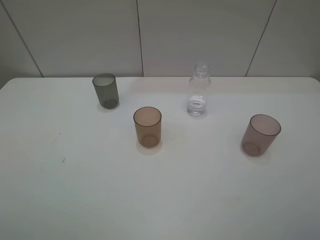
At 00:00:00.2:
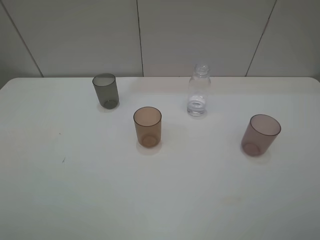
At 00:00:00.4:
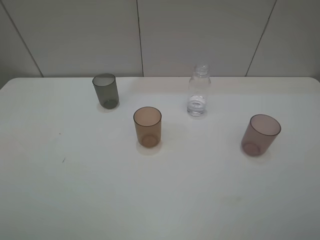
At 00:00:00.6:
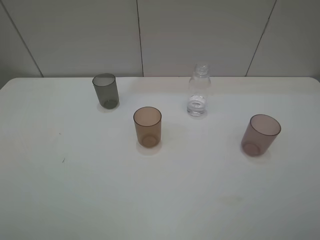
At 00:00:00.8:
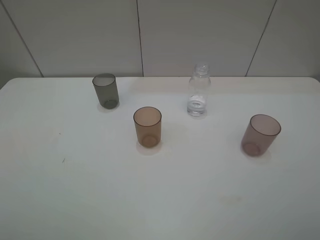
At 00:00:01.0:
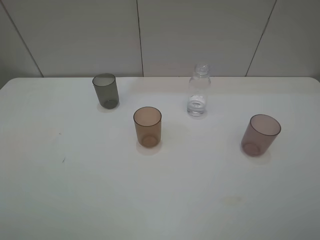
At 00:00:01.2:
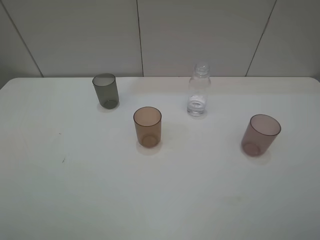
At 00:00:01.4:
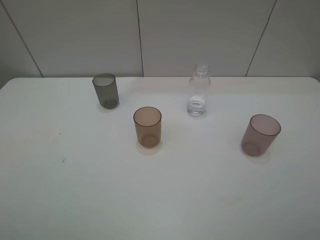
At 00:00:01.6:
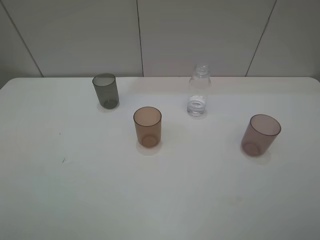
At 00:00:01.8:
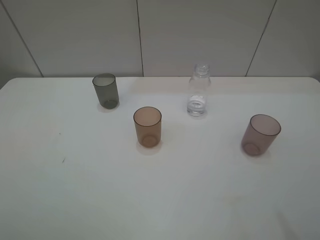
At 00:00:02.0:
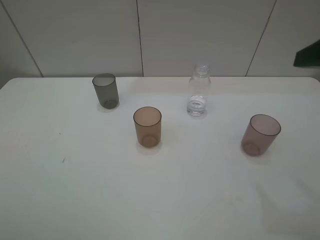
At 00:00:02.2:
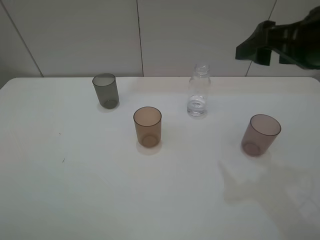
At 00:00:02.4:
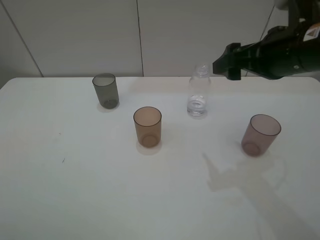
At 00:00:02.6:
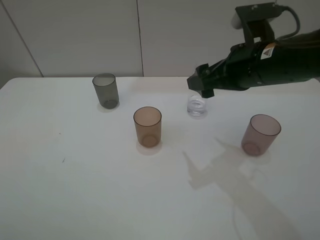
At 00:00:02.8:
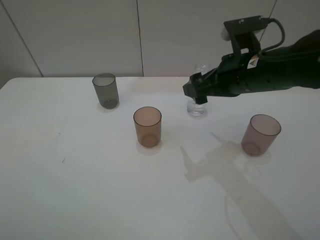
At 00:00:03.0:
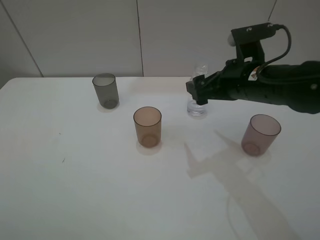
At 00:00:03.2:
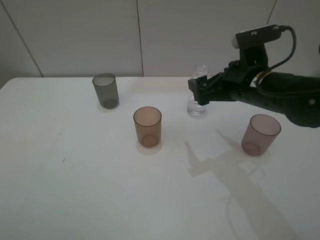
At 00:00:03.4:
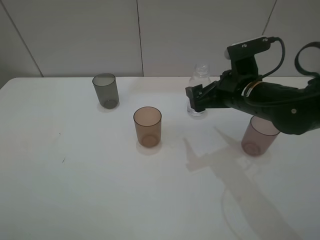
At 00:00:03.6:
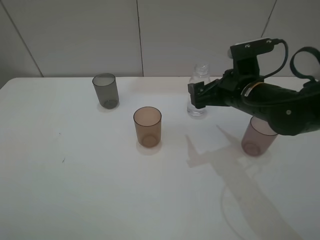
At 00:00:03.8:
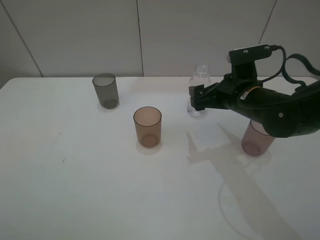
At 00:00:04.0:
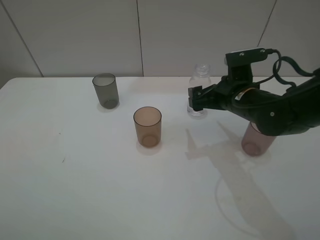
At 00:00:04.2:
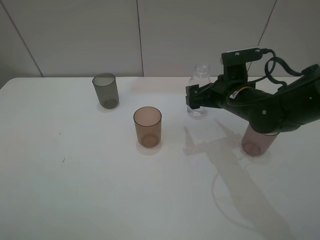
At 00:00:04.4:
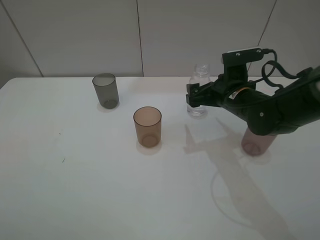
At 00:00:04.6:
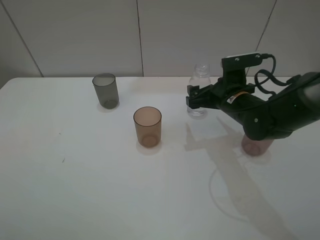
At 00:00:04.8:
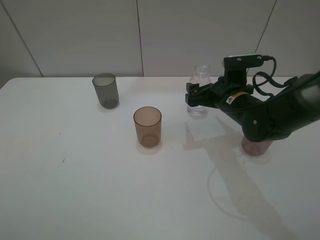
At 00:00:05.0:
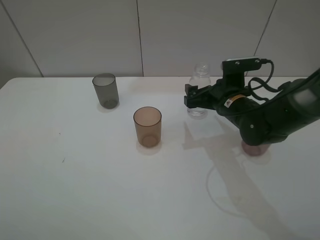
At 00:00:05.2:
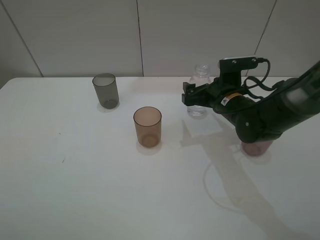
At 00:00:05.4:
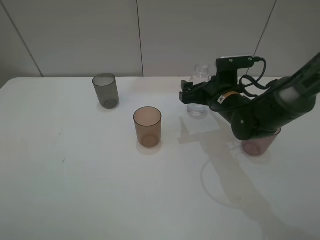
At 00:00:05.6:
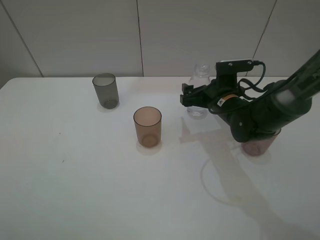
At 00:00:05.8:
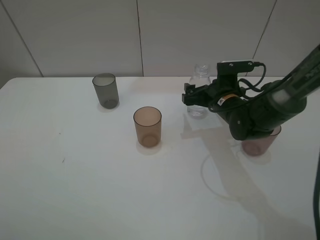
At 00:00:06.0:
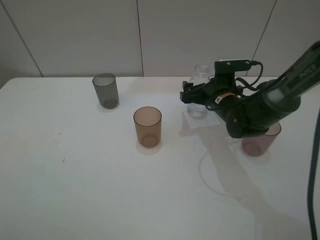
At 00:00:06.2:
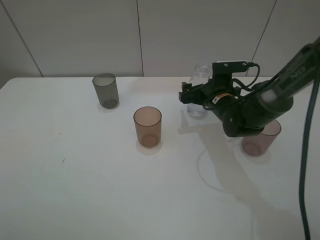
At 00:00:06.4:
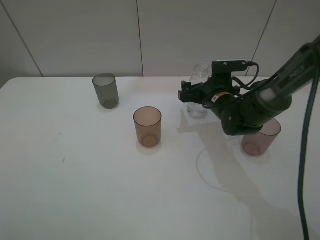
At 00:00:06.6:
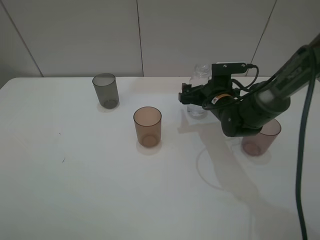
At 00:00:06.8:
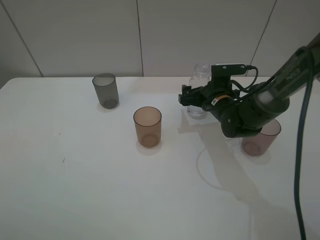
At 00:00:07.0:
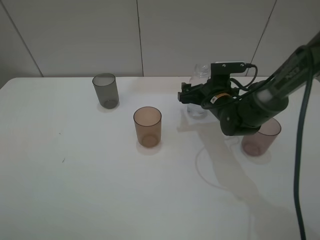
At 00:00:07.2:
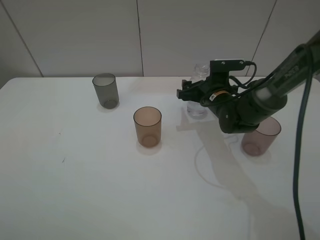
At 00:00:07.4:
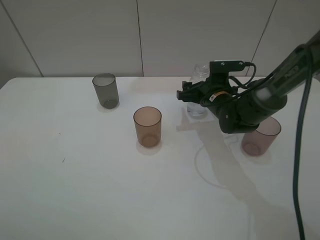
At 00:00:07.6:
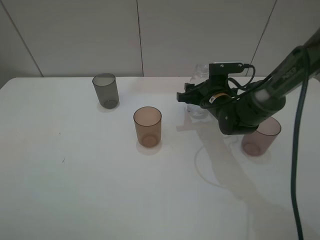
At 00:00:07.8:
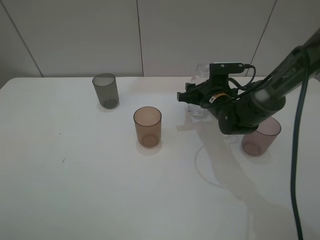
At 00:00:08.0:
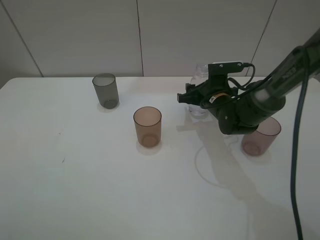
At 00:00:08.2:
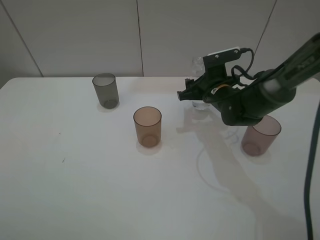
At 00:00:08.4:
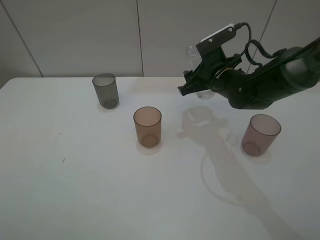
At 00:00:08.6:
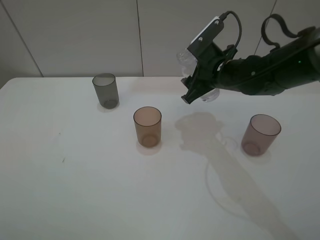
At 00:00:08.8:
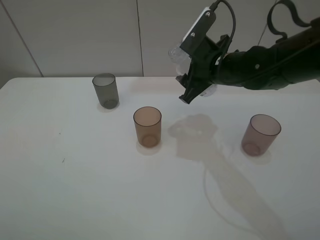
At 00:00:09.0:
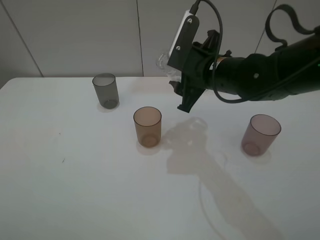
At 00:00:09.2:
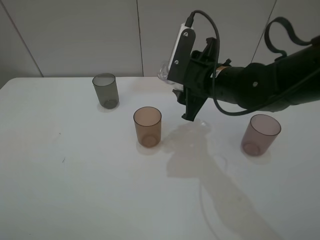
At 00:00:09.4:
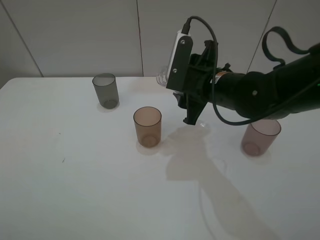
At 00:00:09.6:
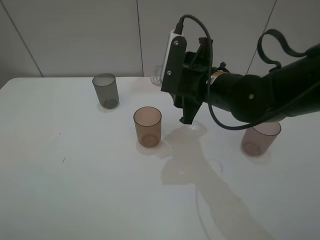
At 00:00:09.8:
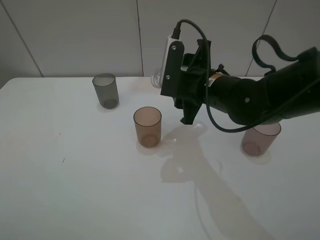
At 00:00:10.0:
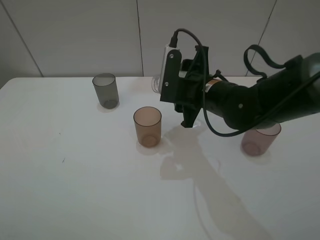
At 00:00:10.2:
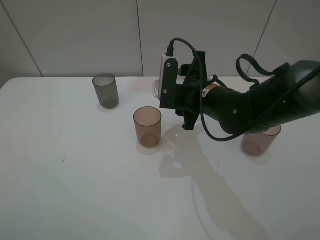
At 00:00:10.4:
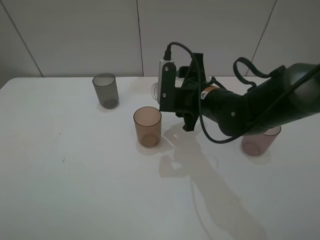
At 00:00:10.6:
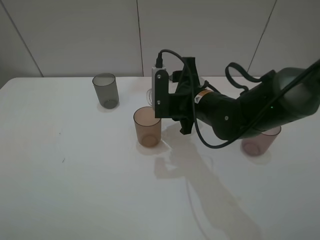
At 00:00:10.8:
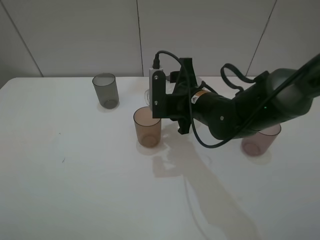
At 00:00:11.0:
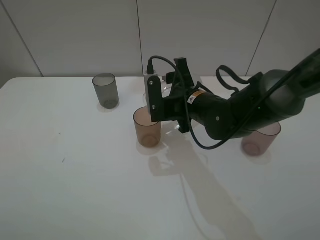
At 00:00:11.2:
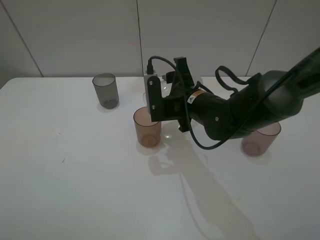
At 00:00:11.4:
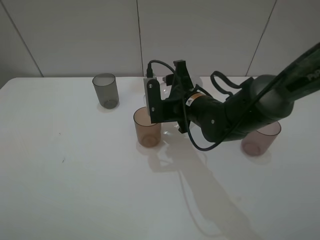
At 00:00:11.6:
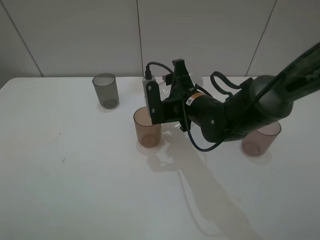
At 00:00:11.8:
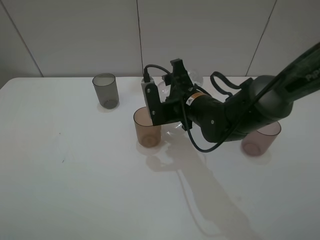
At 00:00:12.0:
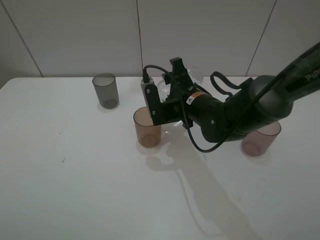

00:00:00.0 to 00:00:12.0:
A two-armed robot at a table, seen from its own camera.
Task of the whole recording: pick up the bottle filled with water and pour water into the middle cup of the three cups.
Step, 00:00:00.0 to 00:00:07.4: Grasp the transparent bottle with the right gripper.
Step, 00:00:07.6 to 00:00:11.6: Pour water from transparent bottle to red cup with the right gripper.
00:00:01.6 to 00:00:03.0: The right gripper moves forward, to the left and downward, about 30 cm.
00:00:03.0 to 00:00:04.4: The right gripper shifts approximately 5 cm downward.
00:00:04.4 to 00:00:06.0: The right gripper changes place by about 5 cm.
00:00:06.0 to 00:00:07.6: The right gripper closes up.
00:00:07.6 to 00:00:09.0: The right gripper travels upward and backward by approximately 15 cm.
00:00:10.4 to 00:00:12.0: The grippers move only a little.

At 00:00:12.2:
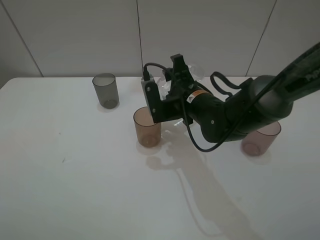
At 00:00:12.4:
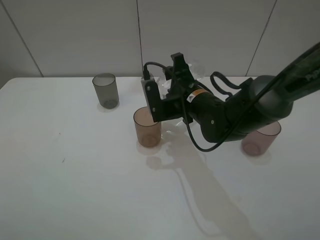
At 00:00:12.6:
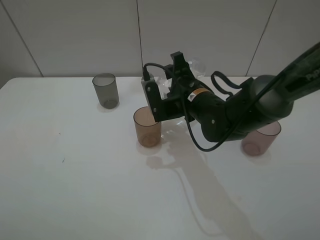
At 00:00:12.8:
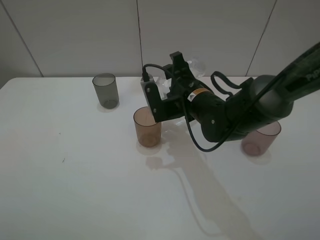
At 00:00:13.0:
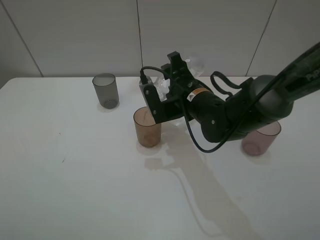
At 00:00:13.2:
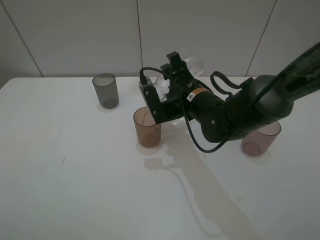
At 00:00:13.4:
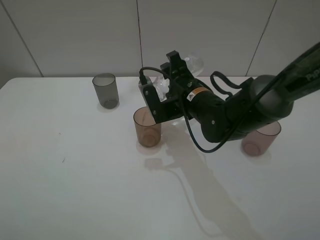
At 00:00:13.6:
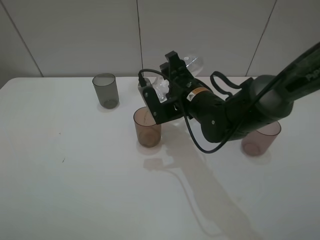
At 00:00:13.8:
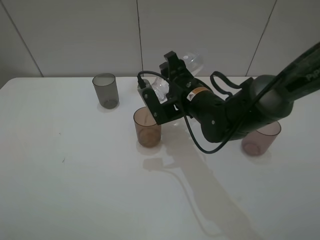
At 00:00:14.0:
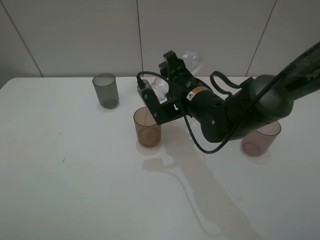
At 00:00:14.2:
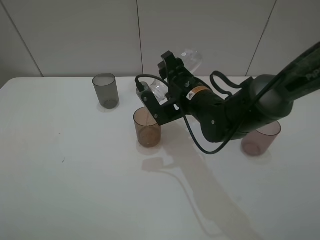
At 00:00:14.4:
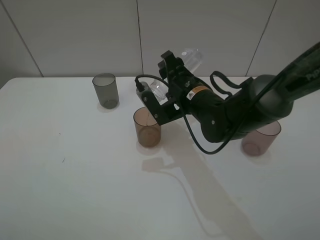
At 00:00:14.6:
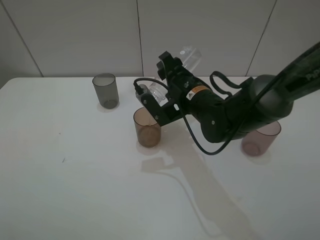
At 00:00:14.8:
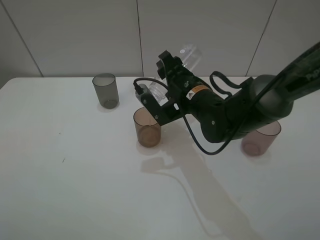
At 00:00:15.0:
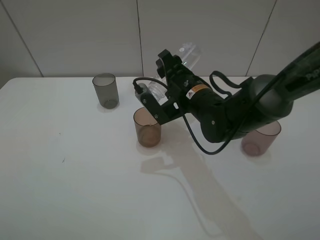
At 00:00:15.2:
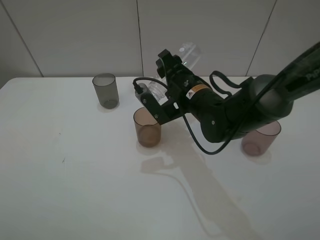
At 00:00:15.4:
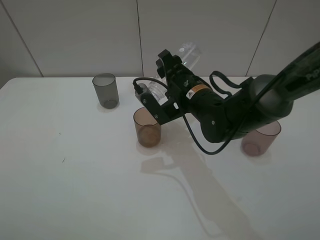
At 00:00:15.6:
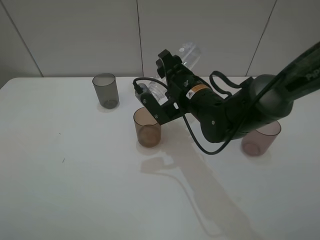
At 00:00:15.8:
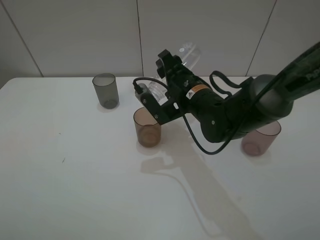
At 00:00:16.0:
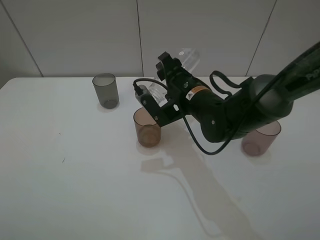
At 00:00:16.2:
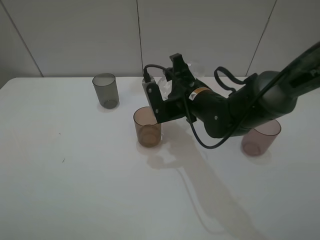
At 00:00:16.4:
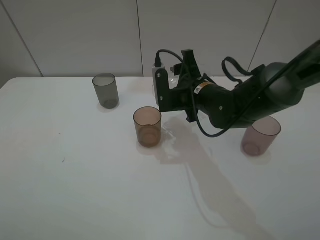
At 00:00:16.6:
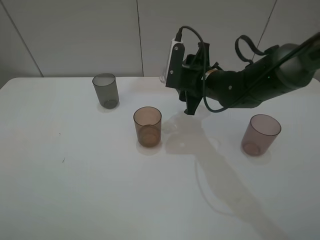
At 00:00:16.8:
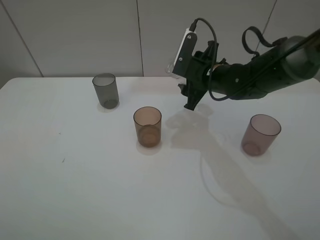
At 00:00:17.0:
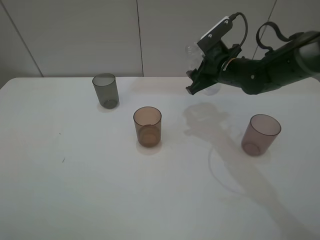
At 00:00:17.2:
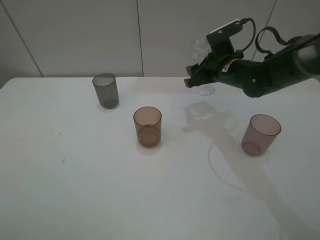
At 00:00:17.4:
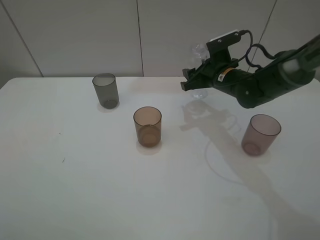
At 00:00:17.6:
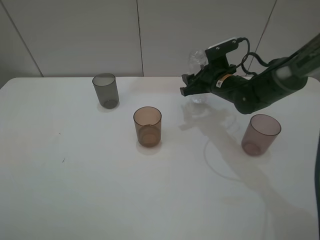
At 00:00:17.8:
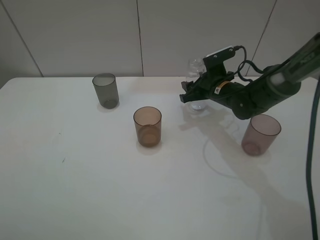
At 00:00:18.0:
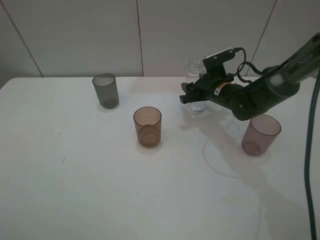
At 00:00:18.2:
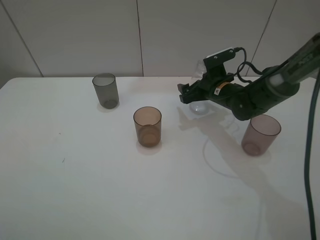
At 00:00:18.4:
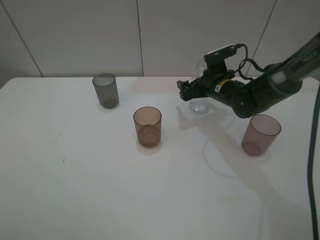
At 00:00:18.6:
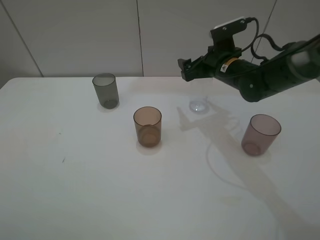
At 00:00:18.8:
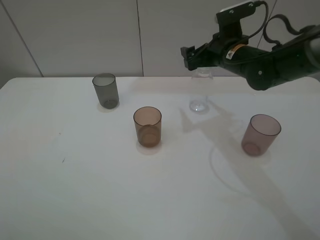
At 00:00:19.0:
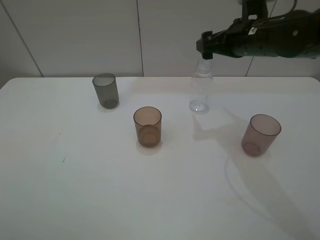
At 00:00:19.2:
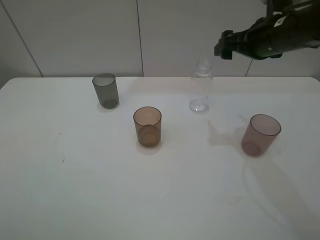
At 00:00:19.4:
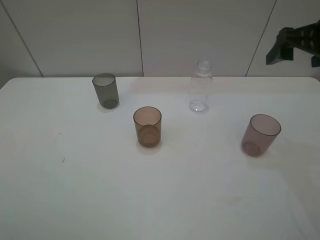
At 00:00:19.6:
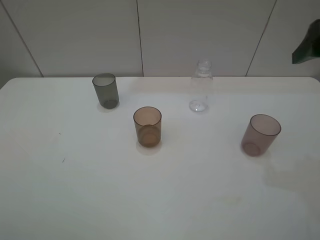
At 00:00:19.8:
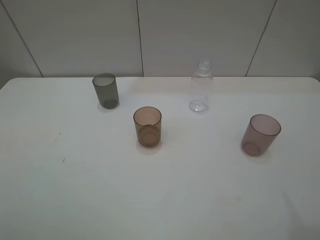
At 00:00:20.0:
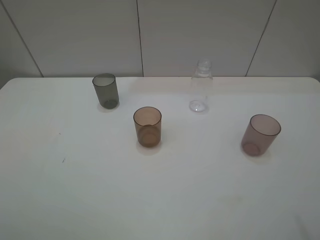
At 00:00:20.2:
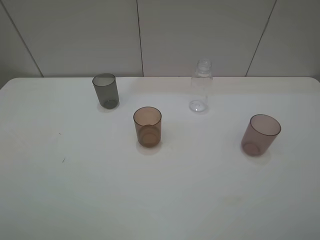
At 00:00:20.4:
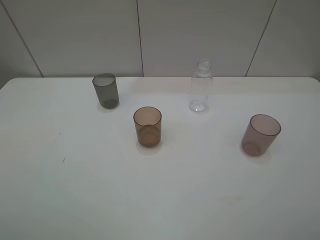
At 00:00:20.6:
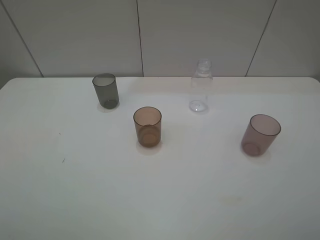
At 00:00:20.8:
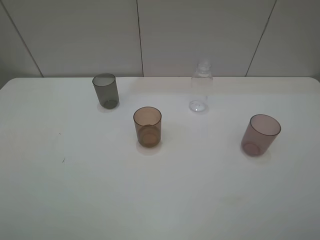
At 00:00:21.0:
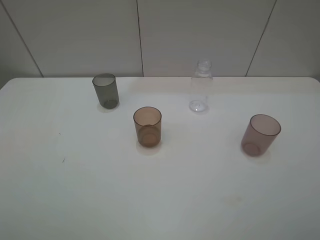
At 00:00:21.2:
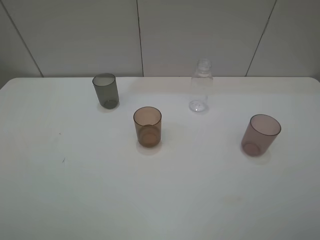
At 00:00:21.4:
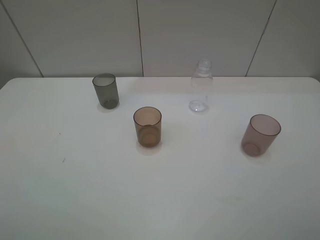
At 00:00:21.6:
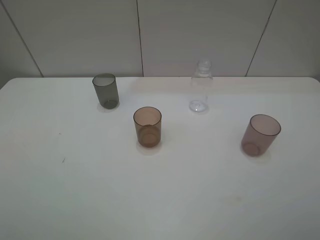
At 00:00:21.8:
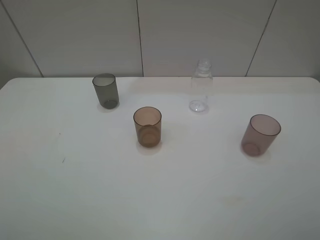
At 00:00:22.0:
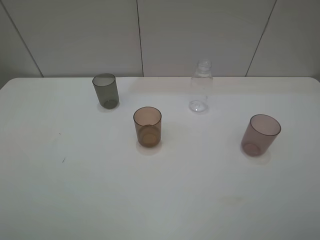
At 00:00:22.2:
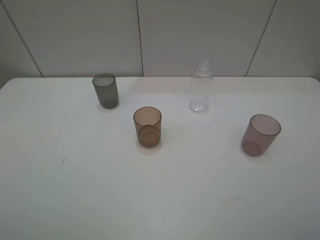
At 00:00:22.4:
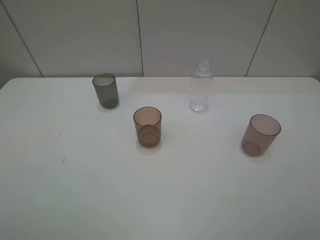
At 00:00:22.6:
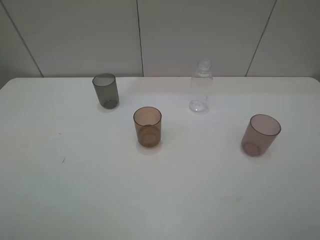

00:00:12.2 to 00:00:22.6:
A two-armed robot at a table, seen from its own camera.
Task of the whole recording: pick up the bottle filled with water and pour water into the middle cup of the three cups.
Step, 00:00:12.2 to 00:00:18.8: Place the transparent bottle with the right gripper.
00:00:12.2 to 00:00:13.6: The grippers make only small movements.
00:00:13.6 to 00:00:15.2: The grippers move only a little.
00:00:15.2 to 00:00:16.6: The right gripper ends up some 5 cm from where it was.
00:00:16.6 to 00:00:18.2: The right gripper is displaced downward by some 5 cm, and opens up.
00:00:18.2 to 00:00:19.6: The right gripper is displaced upward, backward and to the right by roughly 35 cm.
00:00:19.6 to 00:00:21.2: The right gripper moves backward, some 20 cm.
00:00:21.2 to 00:00:22.6: The two grippers keep their place.
